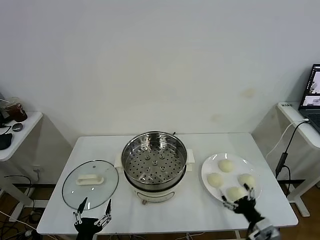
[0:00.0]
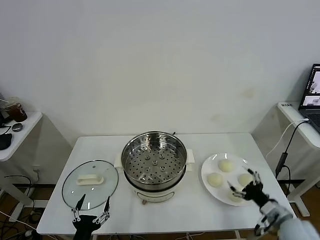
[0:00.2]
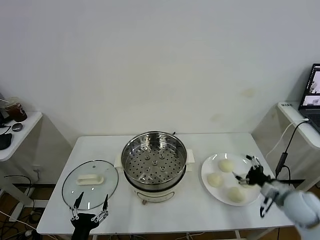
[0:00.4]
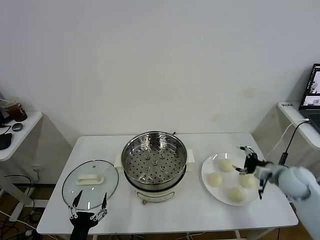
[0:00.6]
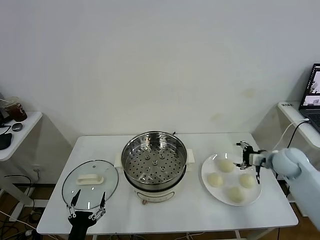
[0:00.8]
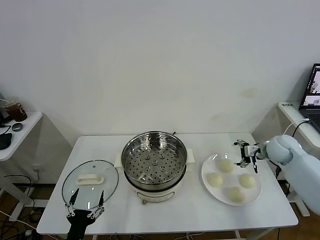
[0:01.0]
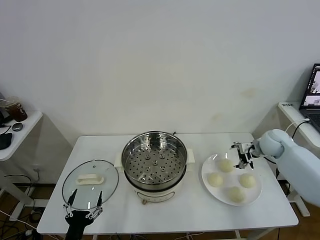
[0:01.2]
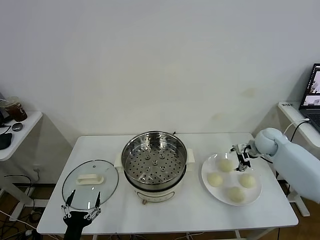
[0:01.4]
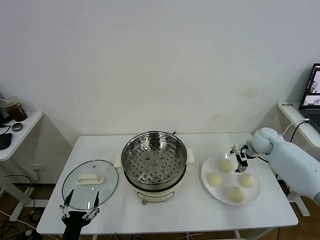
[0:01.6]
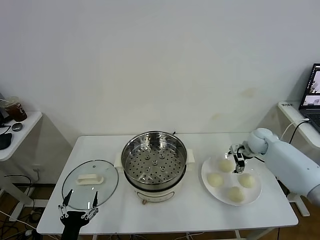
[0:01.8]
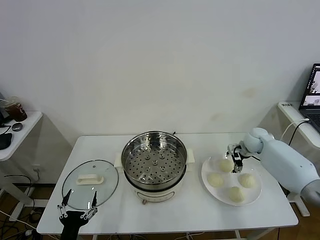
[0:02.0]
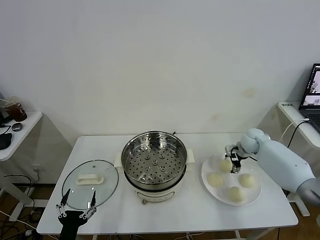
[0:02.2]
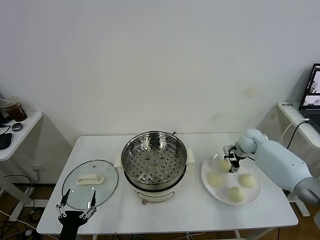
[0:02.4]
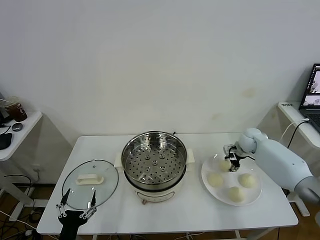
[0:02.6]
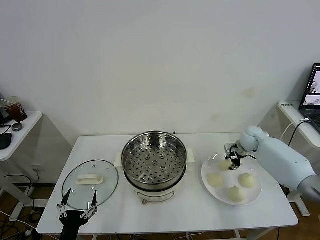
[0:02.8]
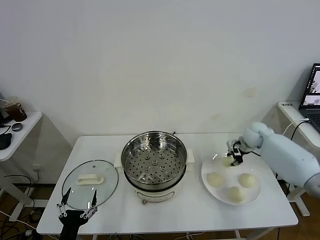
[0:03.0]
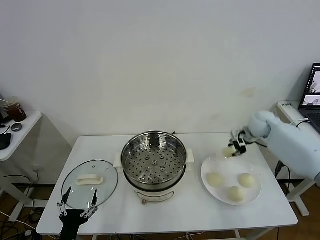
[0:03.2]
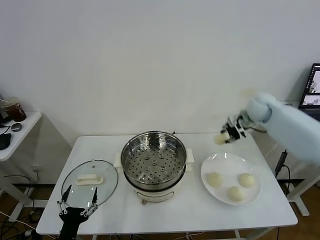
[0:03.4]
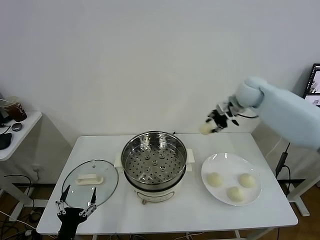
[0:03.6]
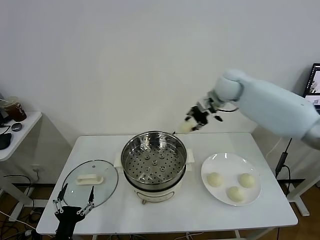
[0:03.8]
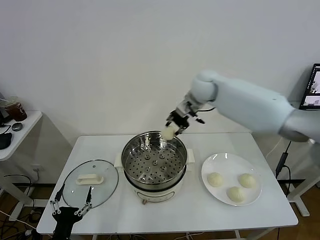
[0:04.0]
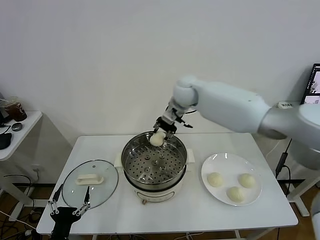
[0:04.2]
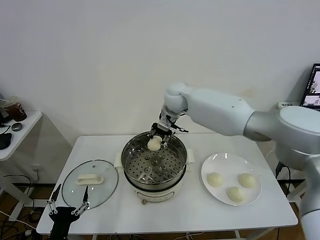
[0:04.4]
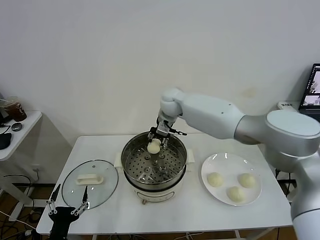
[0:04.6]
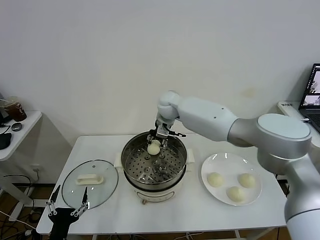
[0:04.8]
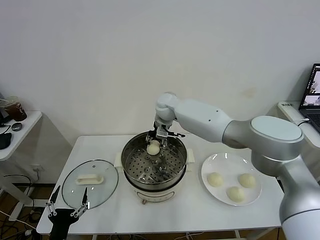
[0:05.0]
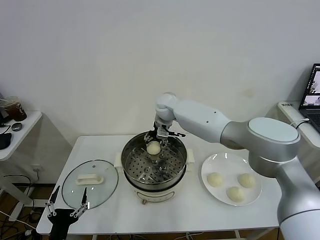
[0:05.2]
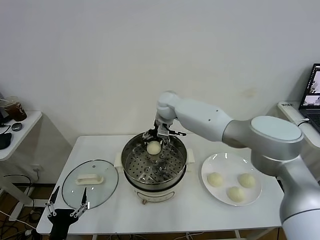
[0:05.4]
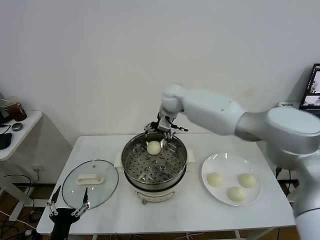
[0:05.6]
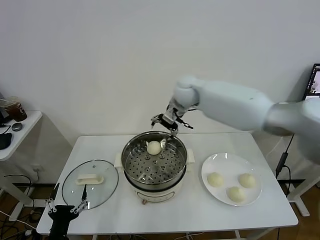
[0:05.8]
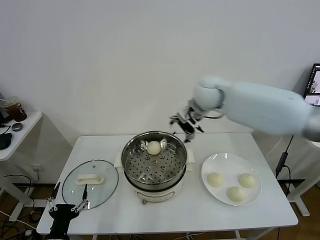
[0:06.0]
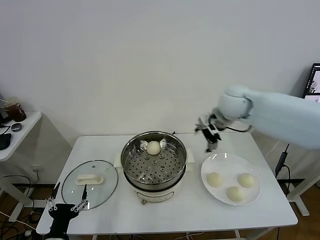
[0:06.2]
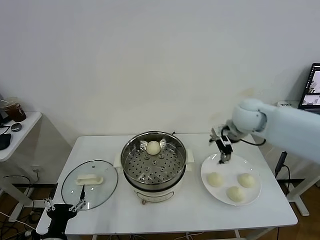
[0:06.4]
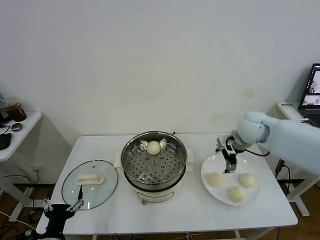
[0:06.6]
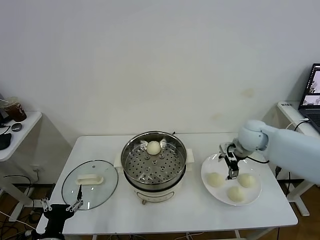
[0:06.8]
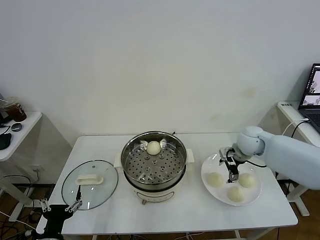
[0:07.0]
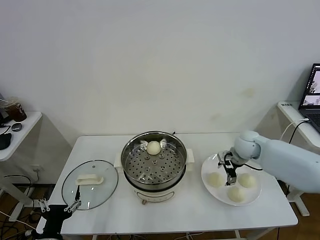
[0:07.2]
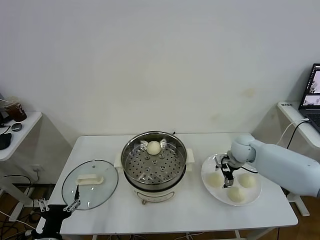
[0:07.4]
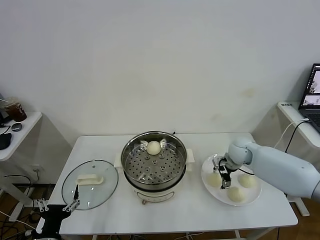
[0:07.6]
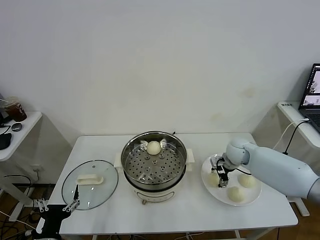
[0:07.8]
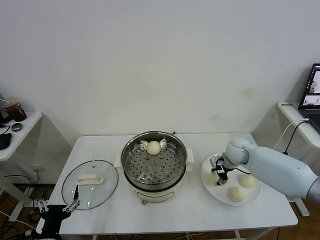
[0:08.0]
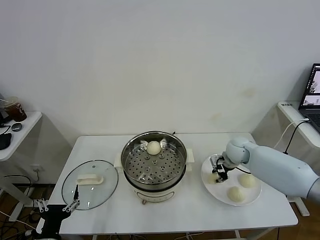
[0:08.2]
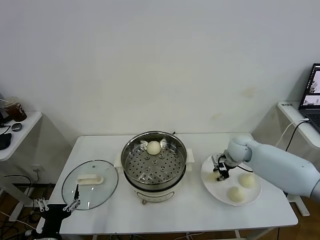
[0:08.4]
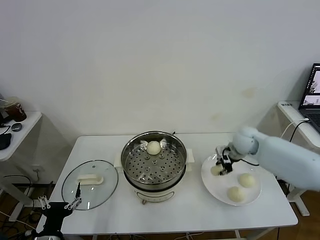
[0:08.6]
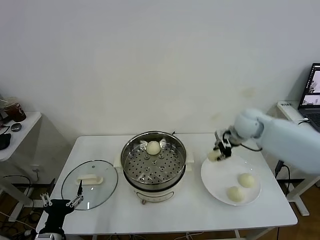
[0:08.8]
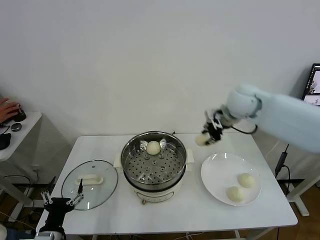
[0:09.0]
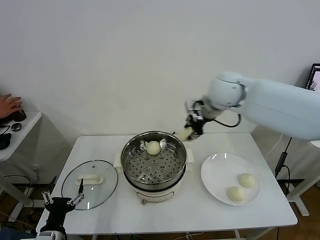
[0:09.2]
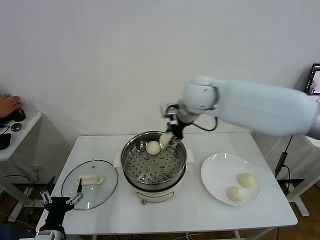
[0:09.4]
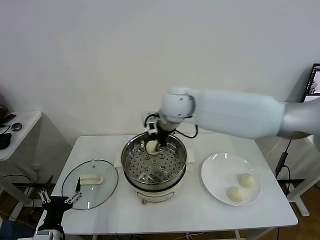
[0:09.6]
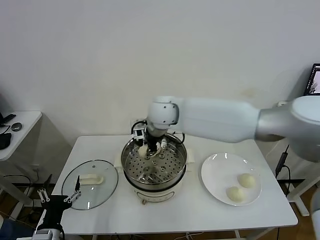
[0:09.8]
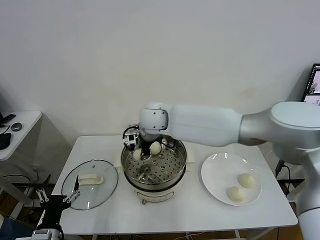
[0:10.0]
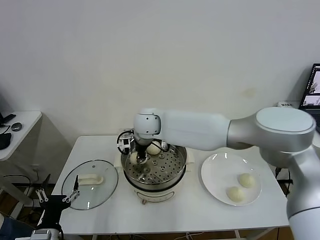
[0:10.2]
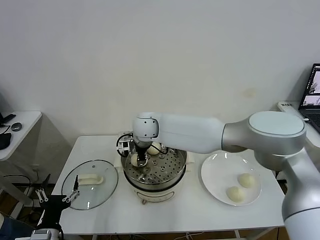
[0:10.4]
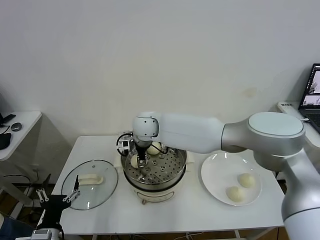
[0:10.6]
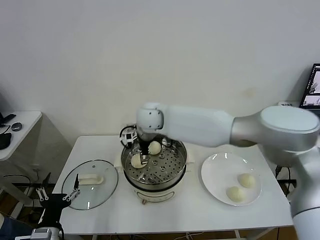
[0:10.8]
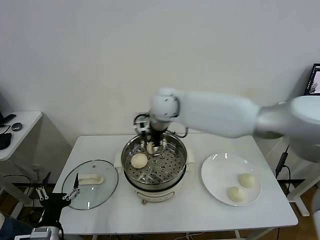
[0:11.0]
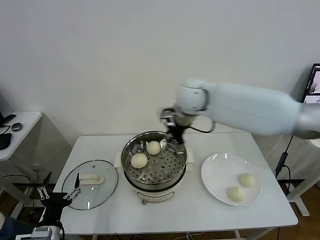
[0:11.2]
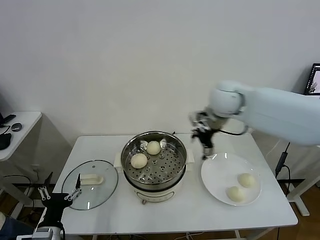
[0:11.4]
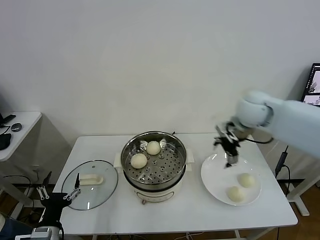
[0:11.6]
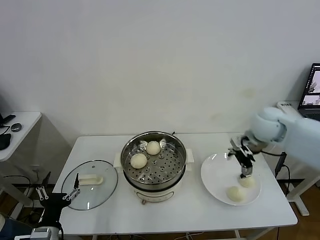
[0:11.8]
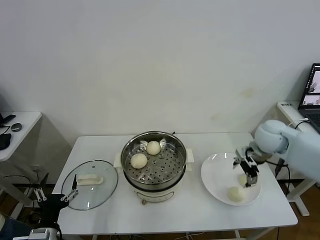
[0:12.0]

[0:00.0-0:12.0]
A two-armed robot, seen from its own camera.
Task of the whole recording: take steamed baozi put them in steamer.
Step, 0.0 to 2.6 s: Grasp the baozi in the plate with right gripper.
Step, 2.8 to 5.6 s: Place the baozi on the steamer with right gripper.
Step, 5.8 to 8.0 s: Grasp the baozi in the plate with right gripper.
Step, 8.2 to 10.8 s: Place the baozi on the steamer with right gripper.
1.6 to 3.0 s: The right gripper travels upward by approximately 5 cm, and closes.
3.0 to 4.4 s: The right gripper shifts approximately 35 cm to the left.
4.4 to 6.0 s: The right gripper heads to the right and backward, covering approximately 15 cm, and opens up.
6.0 to 7.6 s: The right gripper heads downward and to the right, covering approximately 25 cm.
7.6 to 9.0 s: The right gripper shifts roughly 25 cm upward, and closes up.
9.0 to 10.4 s: The right gripper moves to the left and downward, approximately 30 cm, and opens.
10.4 to 12.0 s: The right gripper goes some 40 cm to the right, and opens its fingers.

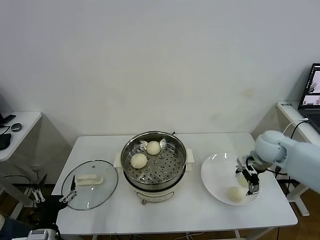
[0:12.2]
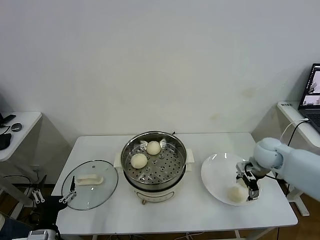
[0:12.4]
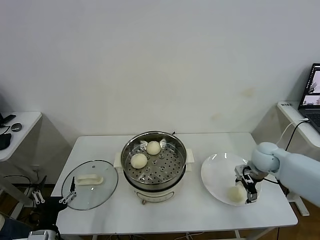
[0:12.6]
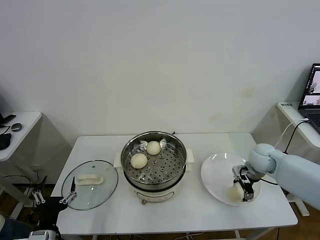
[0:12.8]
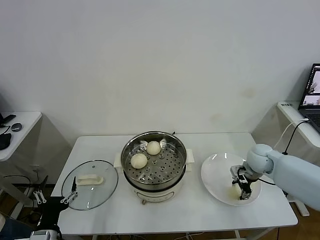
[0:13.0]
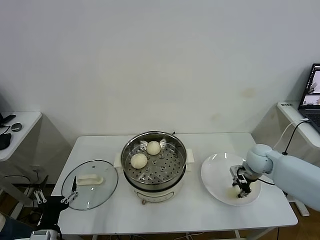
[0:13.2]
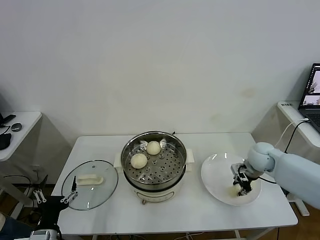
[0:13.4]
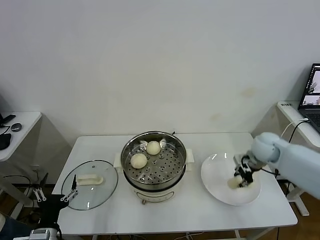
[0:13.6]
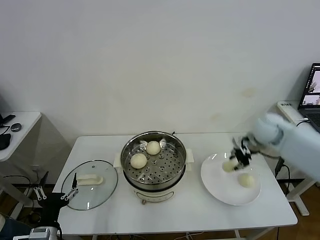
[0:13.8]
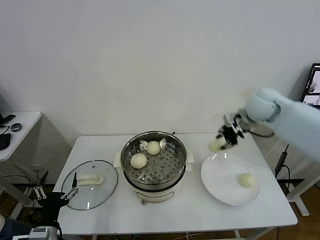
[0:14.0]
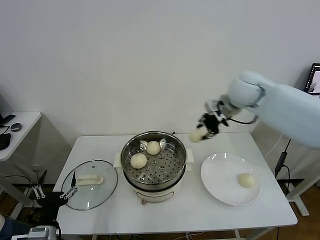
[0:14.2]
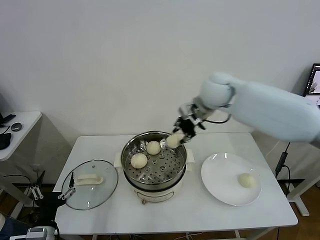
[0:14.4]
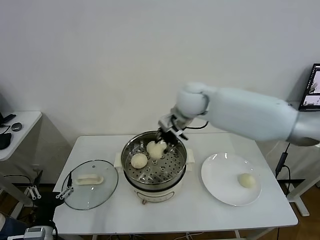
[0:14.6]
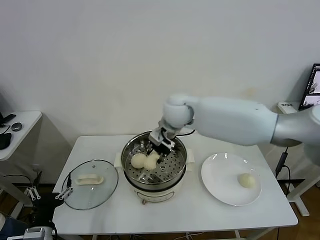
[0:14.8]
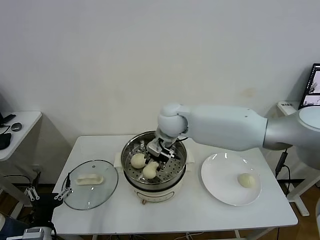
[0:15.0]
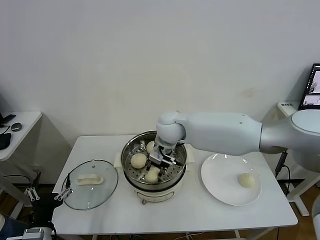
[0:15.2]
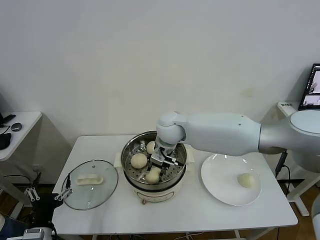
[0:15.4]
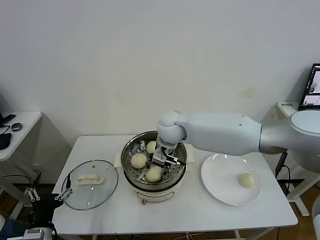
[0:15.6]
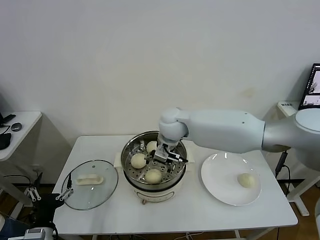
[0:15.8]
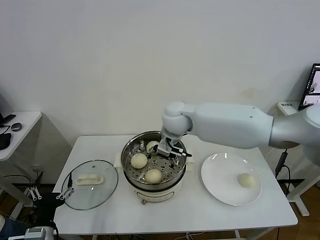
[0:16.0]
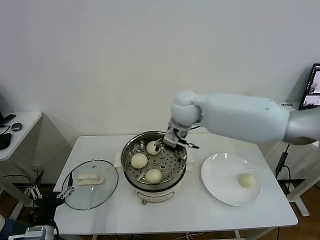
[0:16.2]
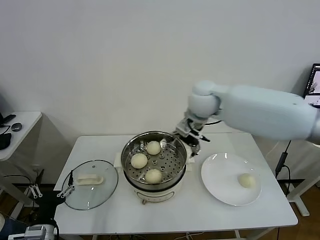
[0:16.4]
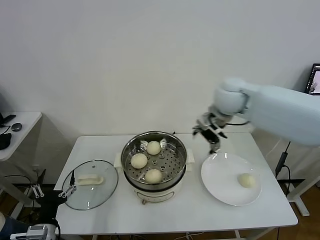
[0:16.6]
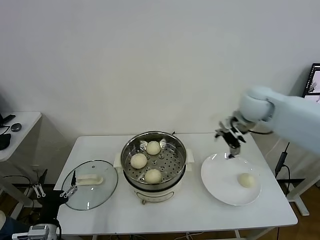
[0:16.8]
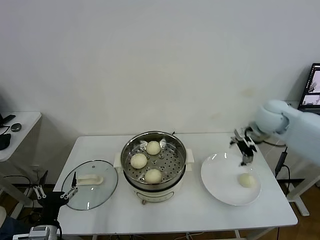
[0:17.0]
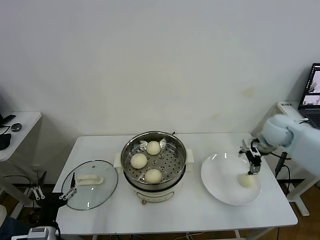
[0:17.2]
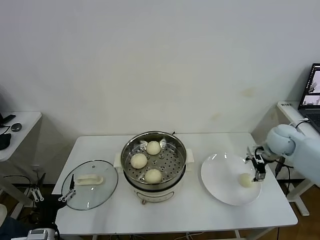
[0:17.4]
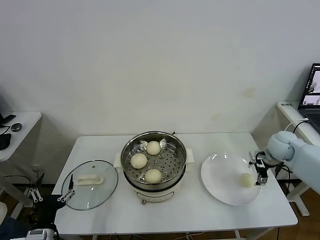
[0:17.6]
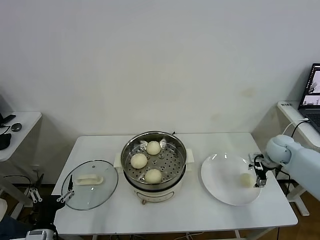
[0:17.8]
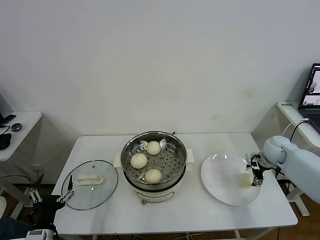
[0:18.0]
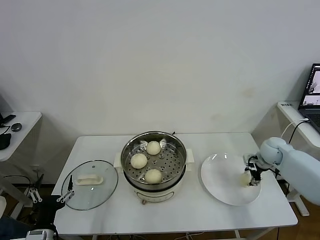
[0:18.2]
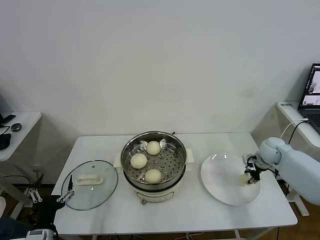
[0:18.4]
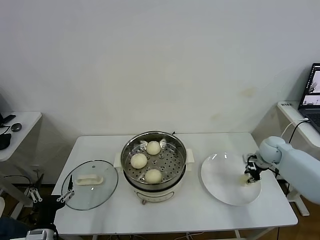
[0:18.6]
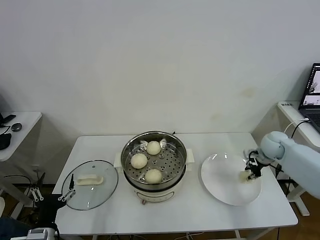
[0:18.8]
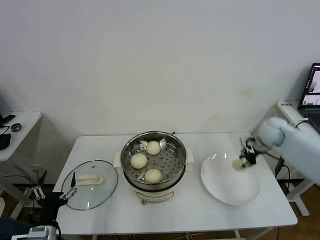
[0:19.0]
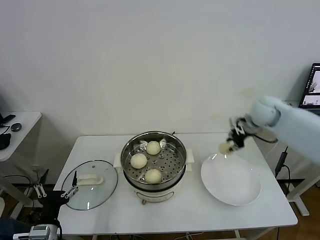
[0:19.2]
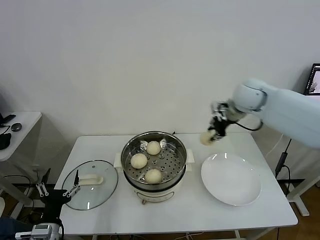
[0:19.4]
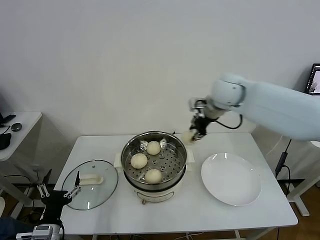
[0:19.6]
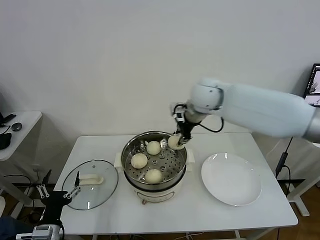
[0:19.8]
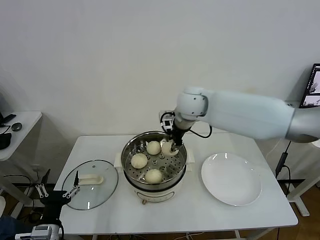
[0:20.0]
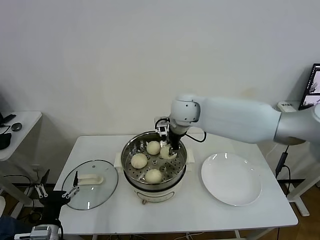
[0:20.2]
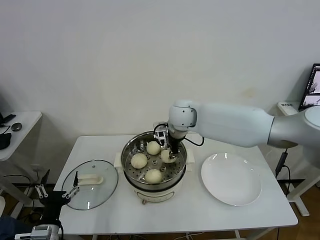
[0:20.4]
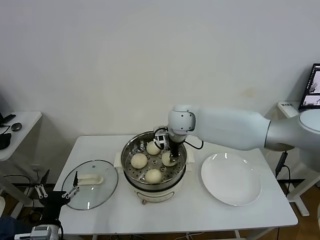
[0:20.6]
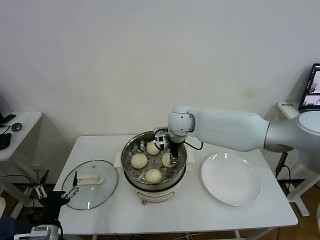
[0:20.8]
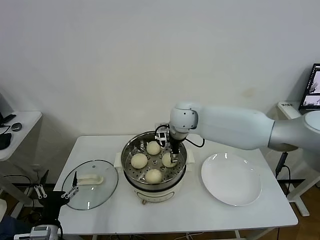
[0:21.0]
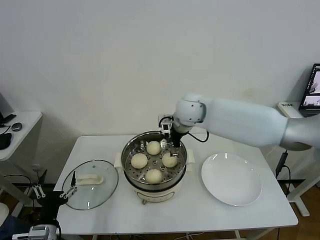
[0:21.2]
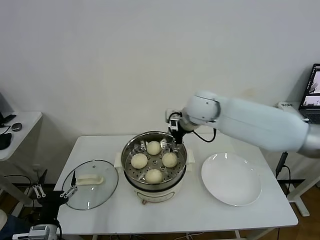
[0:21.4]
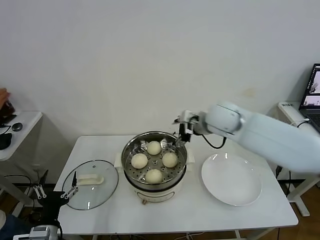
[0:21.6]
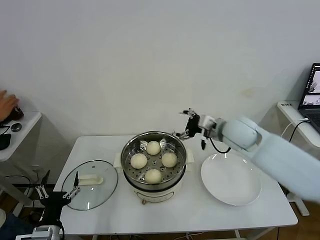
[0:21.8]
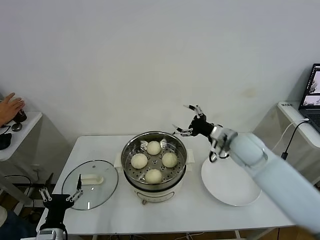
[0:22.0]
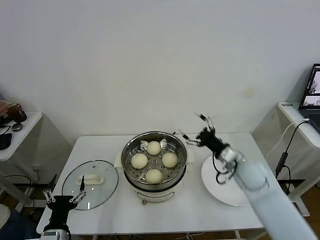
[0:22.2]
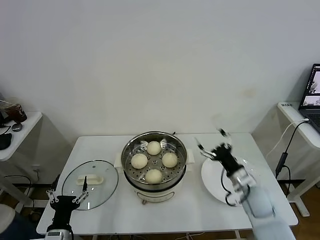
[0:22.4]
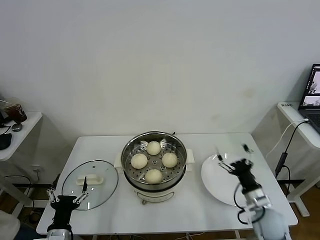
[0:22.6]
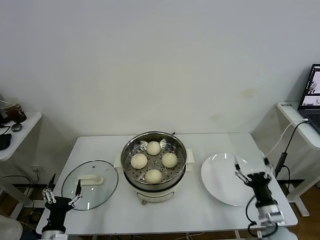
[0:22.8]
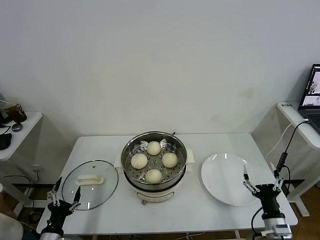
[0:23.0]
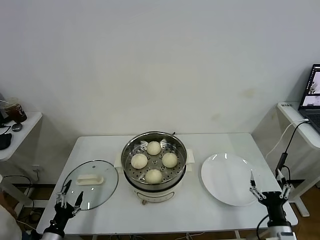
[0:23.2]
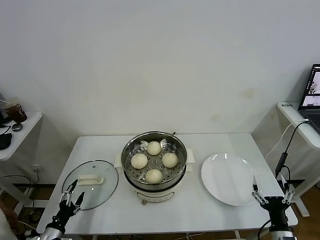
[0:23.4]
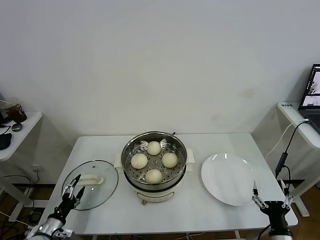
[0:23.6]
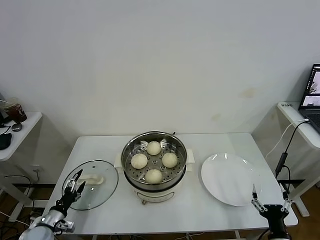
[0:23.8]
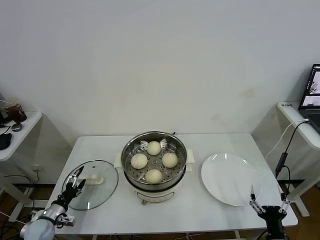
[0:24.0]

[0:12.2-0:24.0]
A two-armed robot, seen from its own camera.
Task of the whole recording: take steamed baozi put them in steamer.
Step, 13.4 to 16.0 s: Place the baozi on the steamer with right gripper.
Step, 16.2 to 18.4 s: Grasp the baozi in the plate with right gripper.
Step, 18.6 to 21.2 s: Place the baozi on the steamer with right gripper.
12.2 to 13.6 s: The right gripper closes its fingers.
13.6 to 15.2 s: The right gripper goes roughly 35 cm to the left.
15.2 to 16.6 s: The right gripper is displaced to the right and upward by approximately 20 cm, and opens its fingers.
16.6 to 18.2 s: The right gripper goes approximately 30 cm downward and to the right, and closes up.
18.2 to 19.6 s: The right gripper heads to the left and upward, covering approximately 35 cm, and closes up.
19.6 to 21.0 s: The right gripper moves to the left and downward, approximately 15 cm, and opens up.
21.0 to 22.6 s: The right gripper travels backward, to the right and downward by about 40 cm.
22.6 to 24.0 s: The left gripper heads to the left, forward and downward, covering about 20 cm. The right gripper is displaced backward and downward by some 15 cm.
